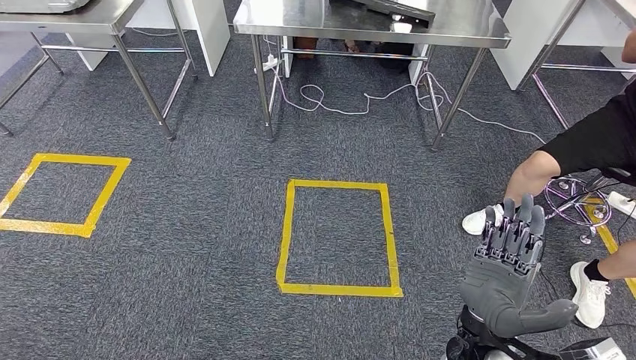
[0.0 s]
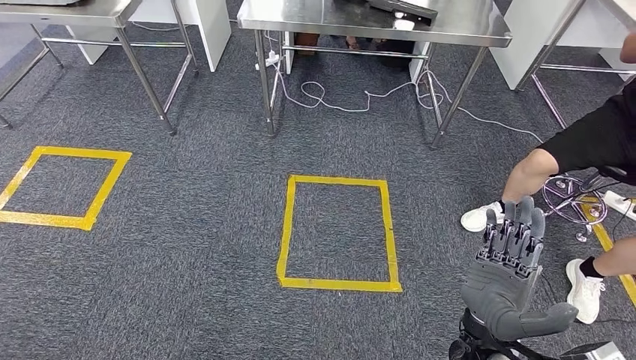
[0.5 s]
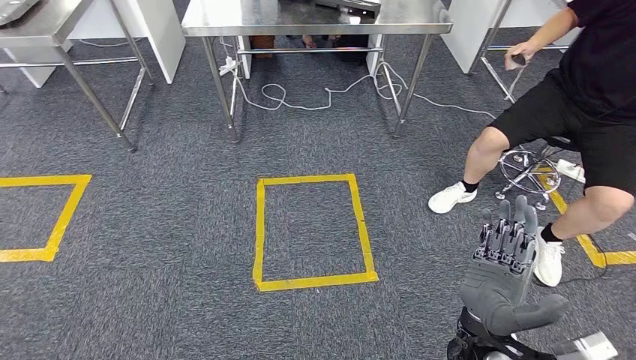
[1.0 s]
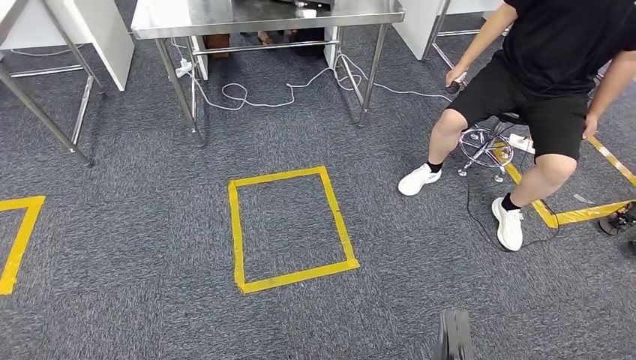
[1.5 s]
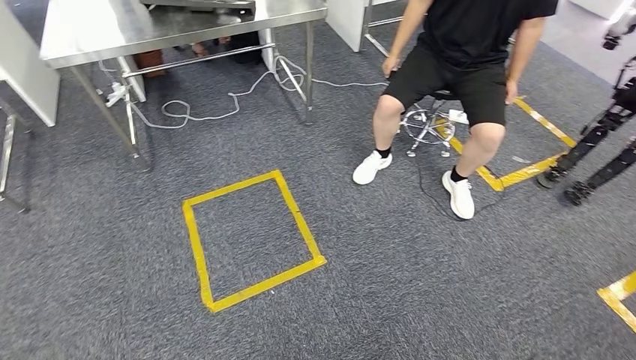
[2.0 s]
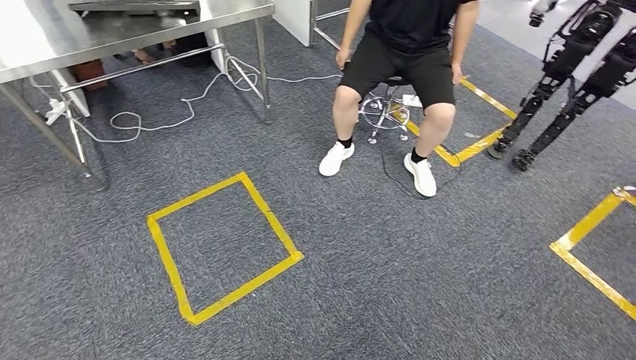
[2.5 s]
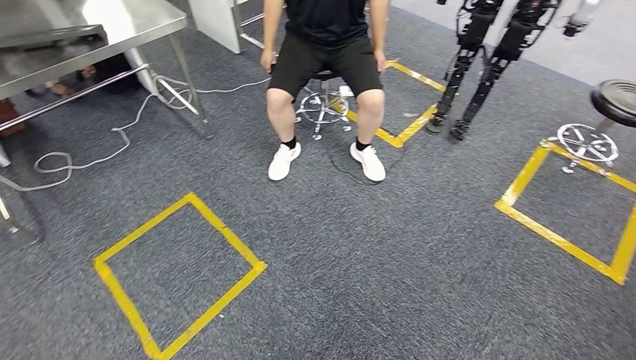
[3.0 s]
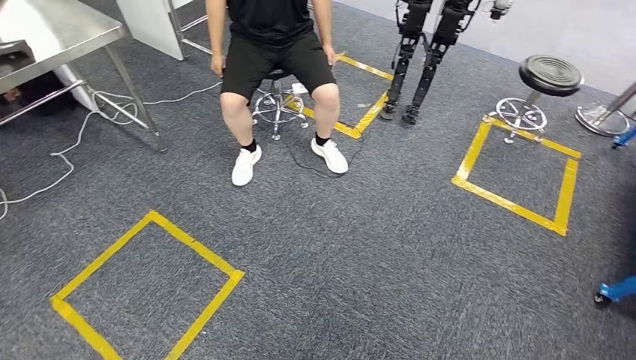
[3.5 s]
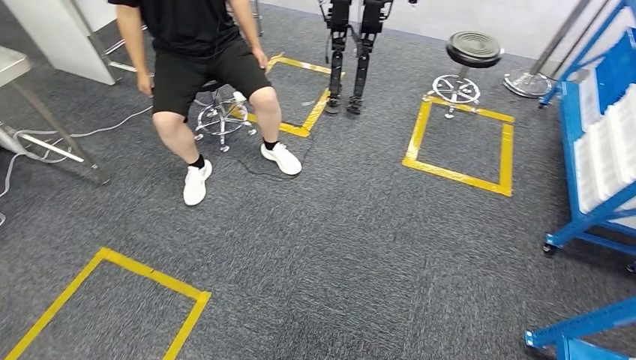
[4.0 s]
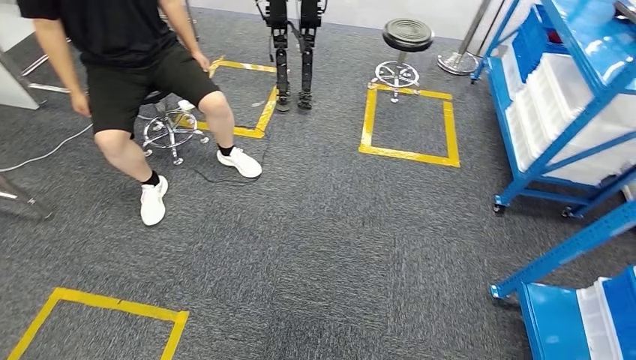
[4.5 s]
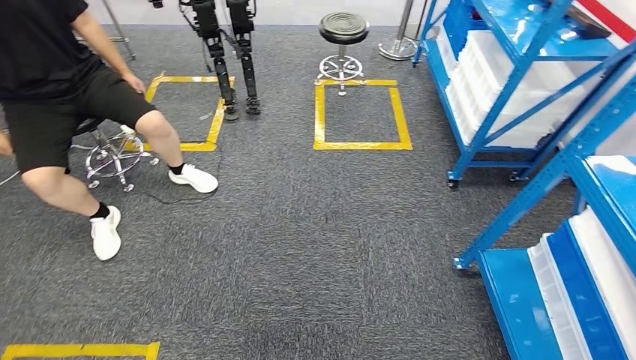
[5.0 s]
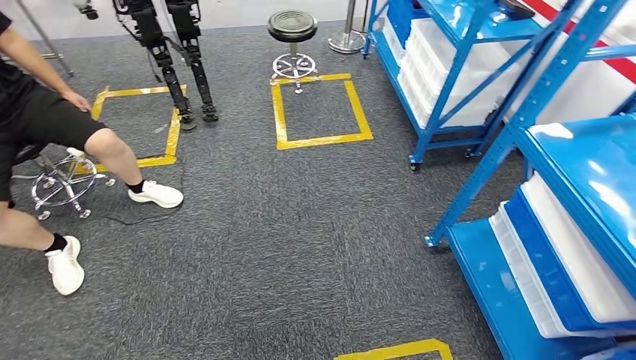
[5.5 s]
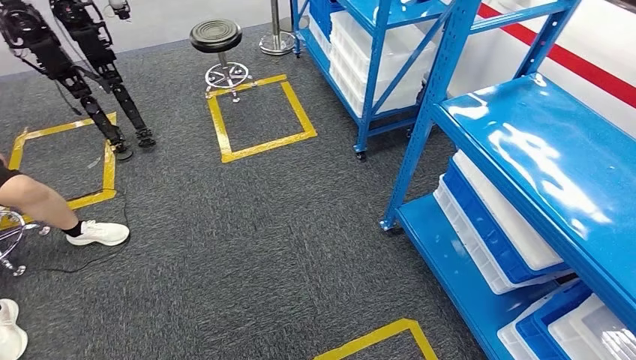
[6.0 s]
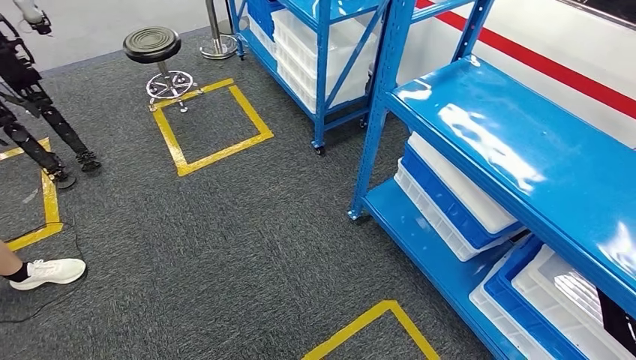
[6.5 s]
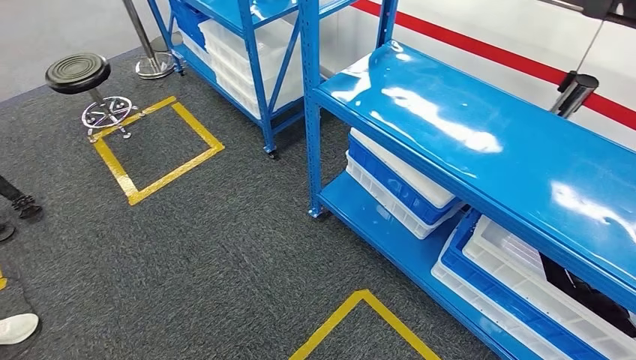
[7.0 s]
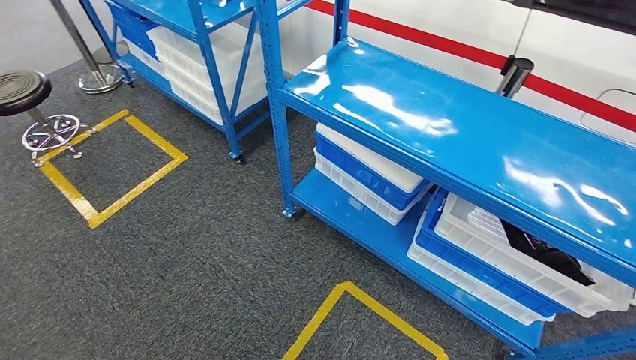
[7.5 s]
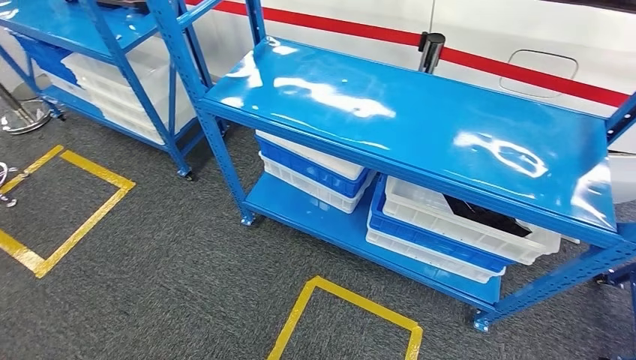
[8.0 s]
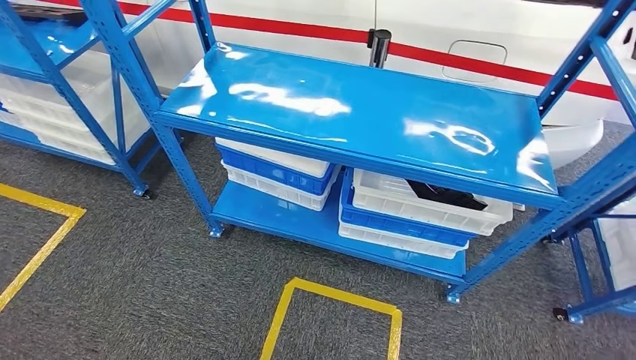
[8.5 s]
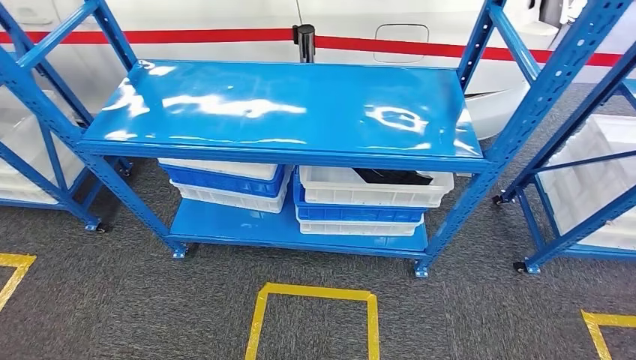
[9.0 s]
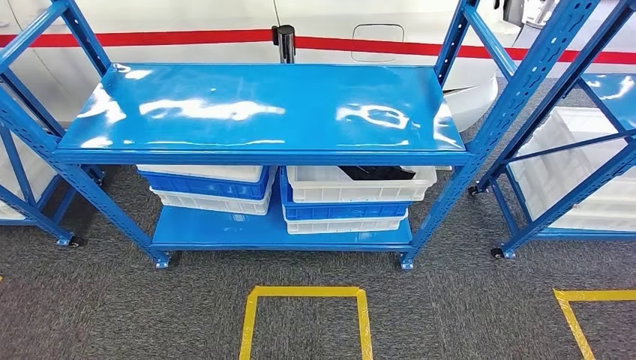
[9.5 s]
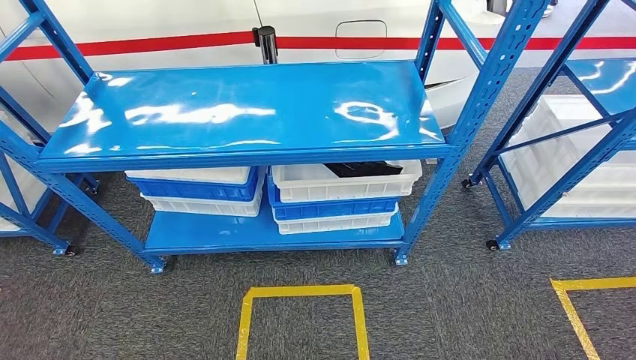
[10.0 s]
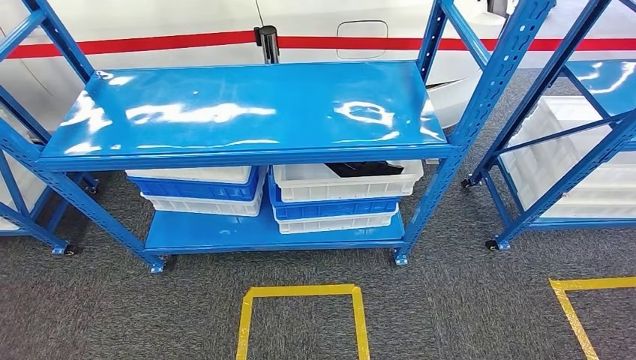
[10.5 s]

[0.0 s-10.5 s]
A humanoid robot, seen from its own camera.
Step, 0.0 to 10.5 s: Move to the initial position of the shelf.

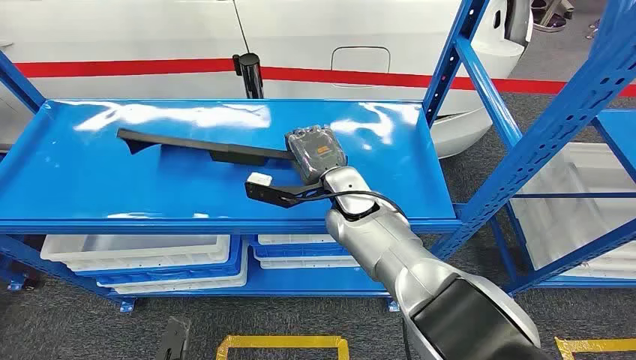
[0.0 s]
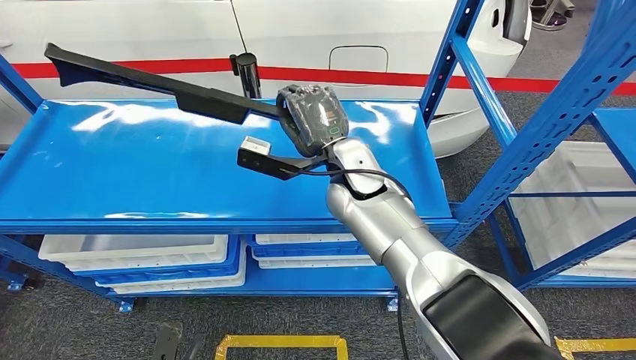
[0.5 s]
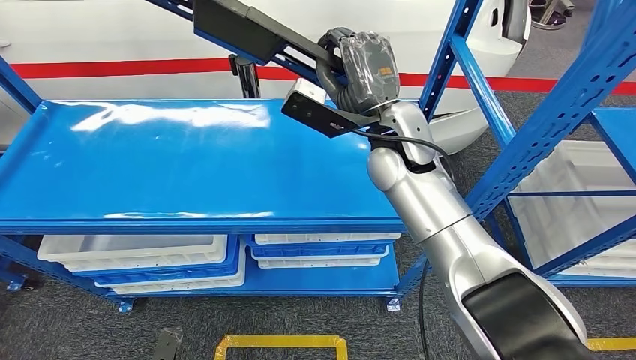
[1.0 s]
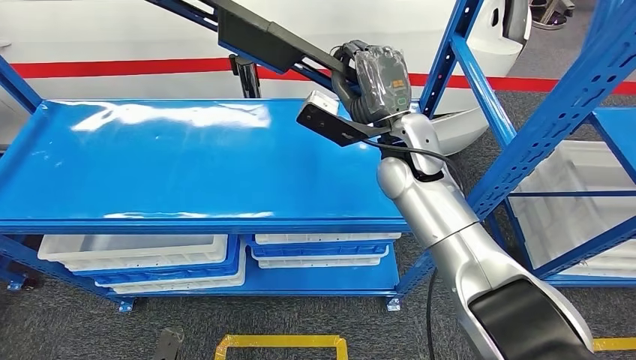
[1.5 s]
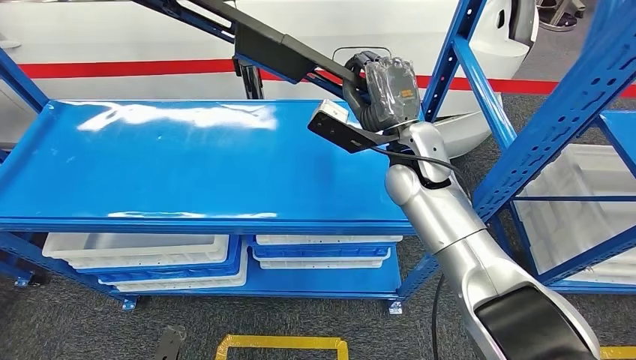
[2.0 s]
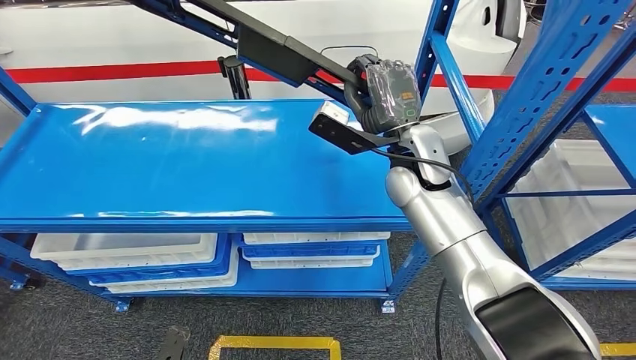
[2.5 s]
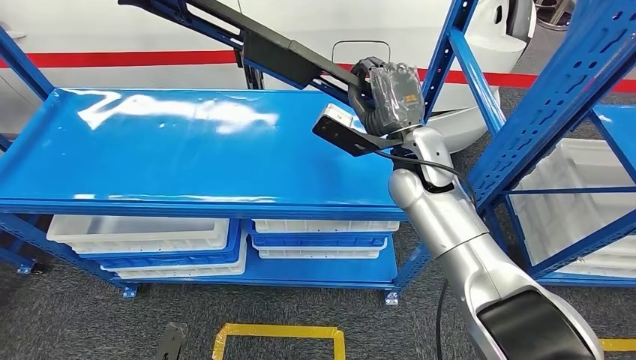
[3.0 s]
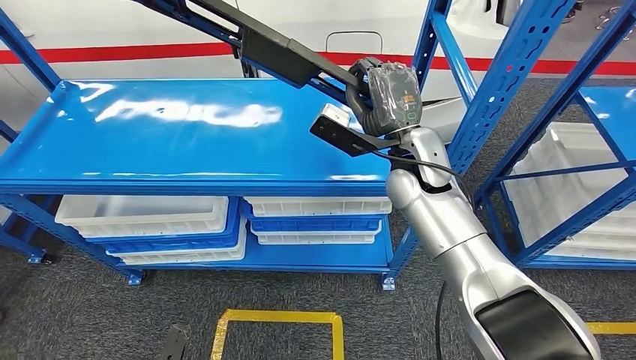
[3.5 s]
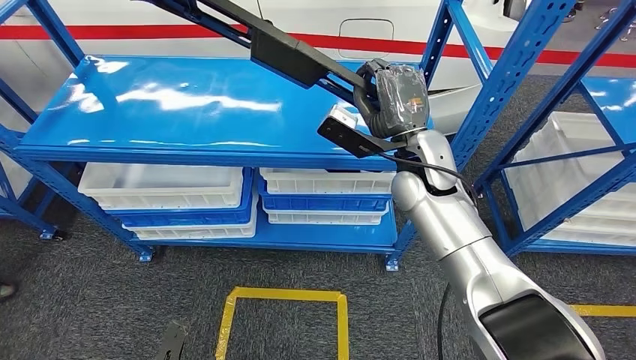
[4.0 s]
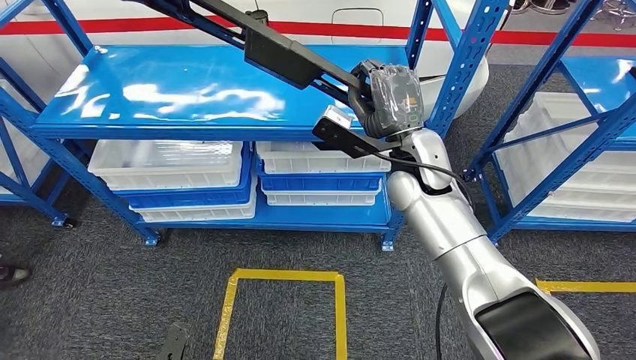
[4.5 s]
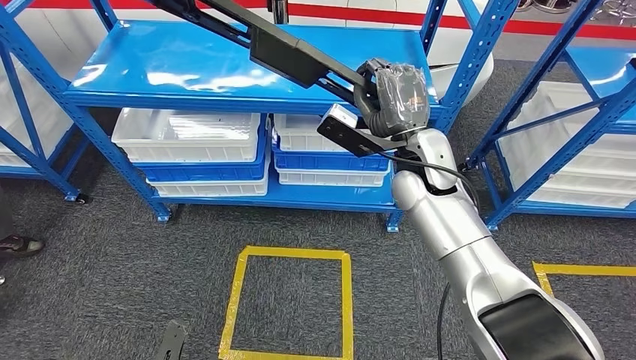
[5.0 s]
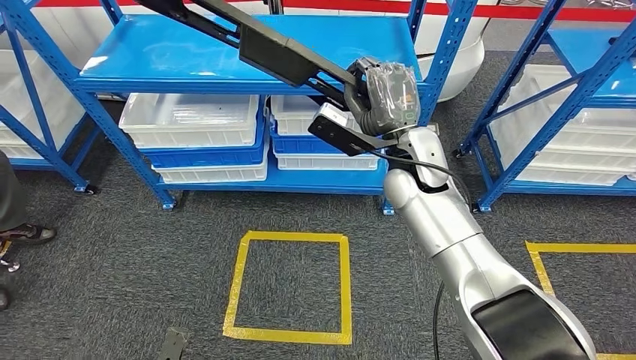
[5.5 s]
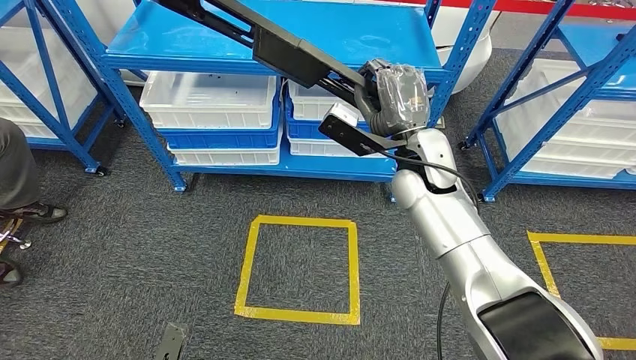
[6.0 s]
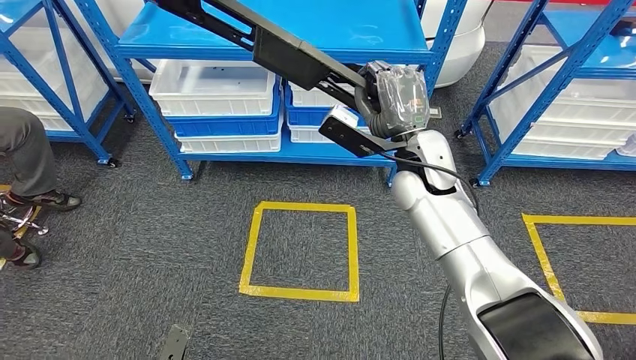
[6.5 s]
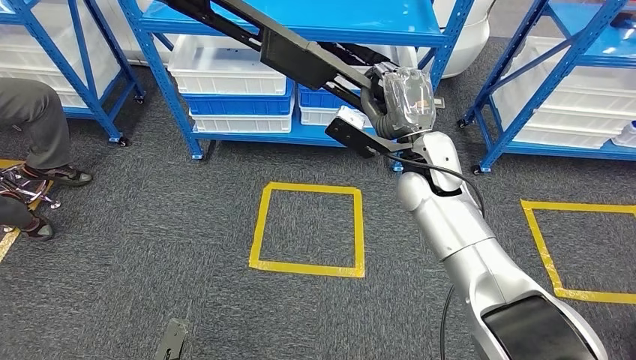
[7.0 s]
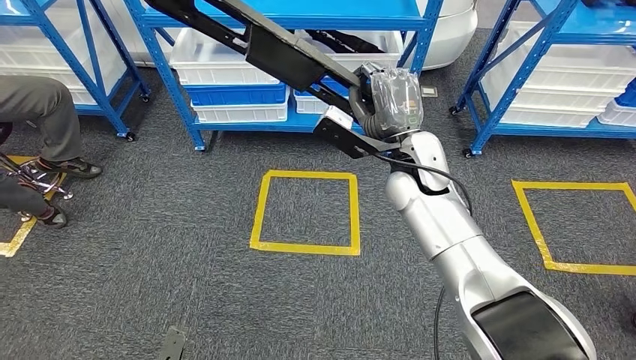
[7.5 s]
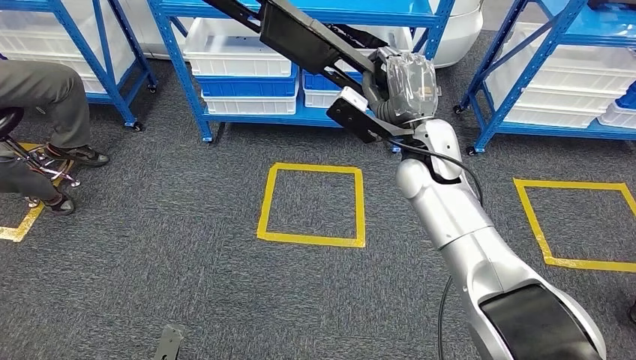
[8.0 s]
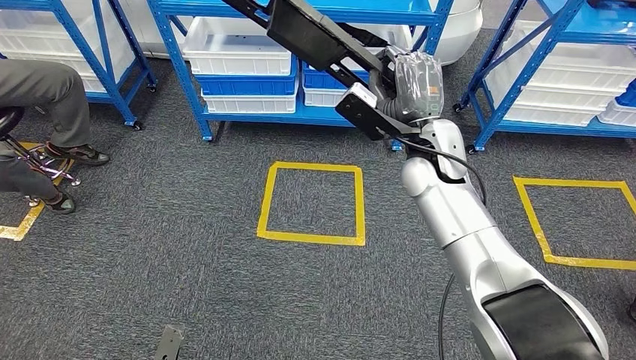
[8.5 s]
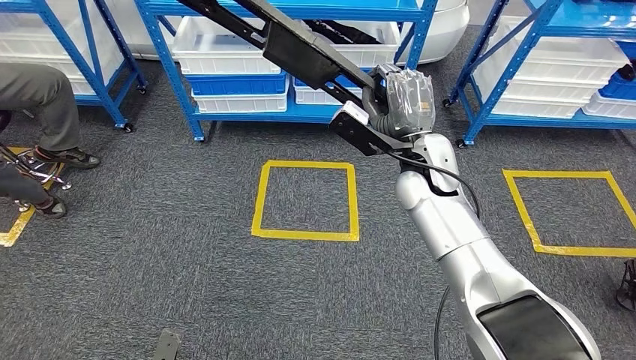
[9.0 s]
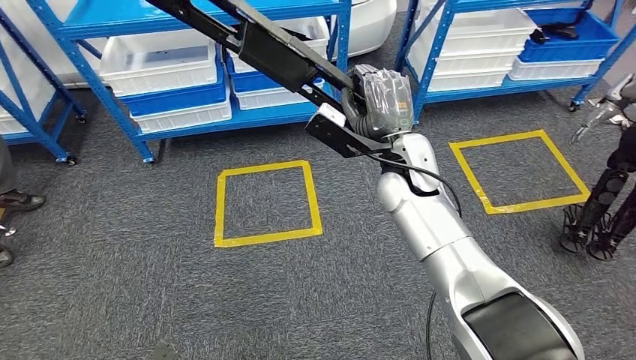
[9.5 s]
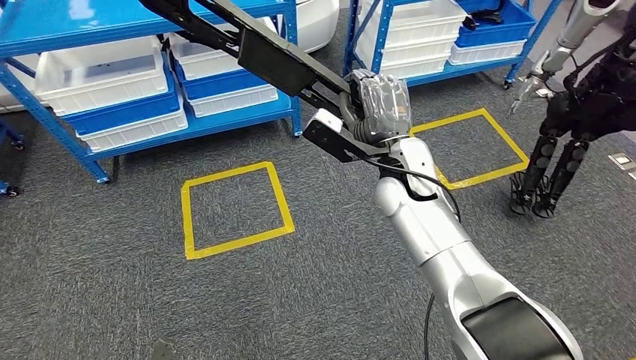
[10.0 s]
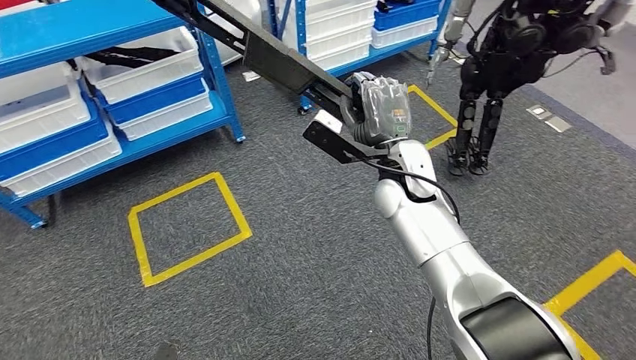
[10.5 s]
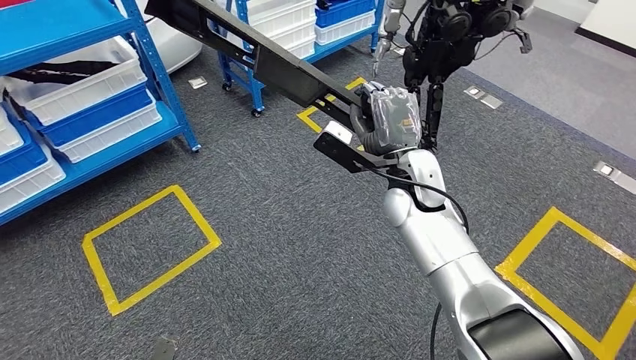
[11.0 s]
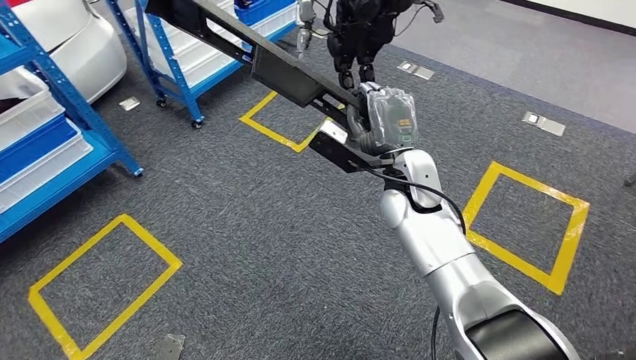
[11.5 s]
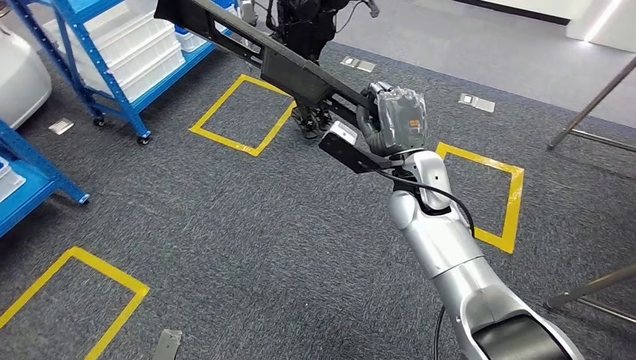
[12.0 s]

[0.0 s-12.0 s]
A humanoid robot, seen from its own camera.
Step, 0.0 to 4.5 s: Pick up the large material from the shelf.
